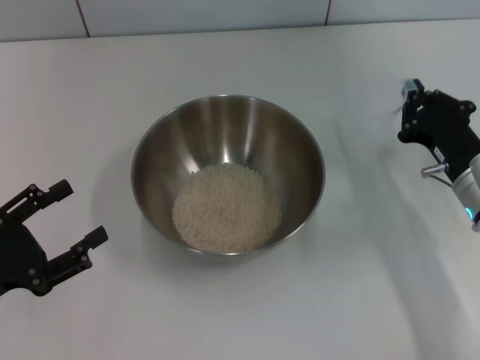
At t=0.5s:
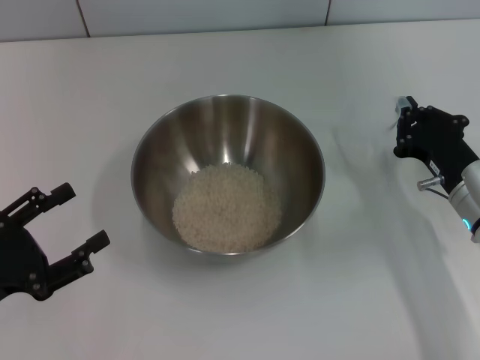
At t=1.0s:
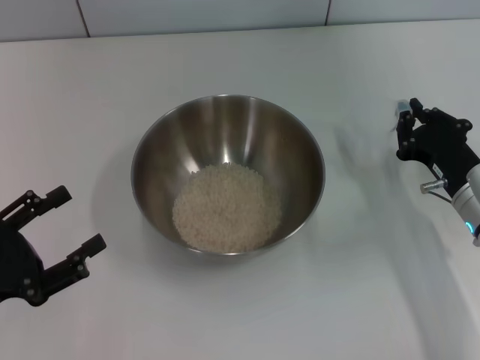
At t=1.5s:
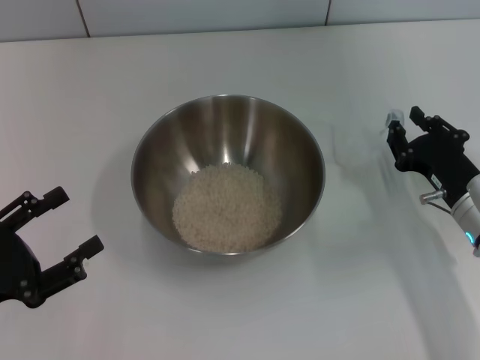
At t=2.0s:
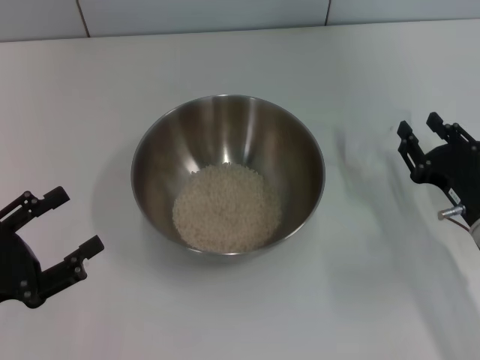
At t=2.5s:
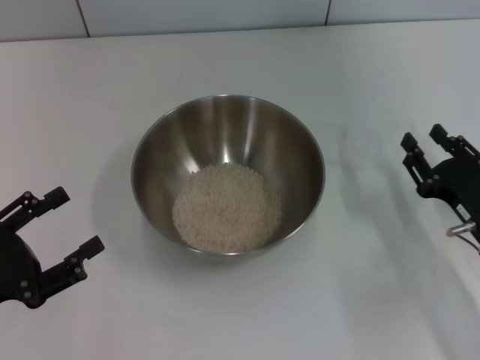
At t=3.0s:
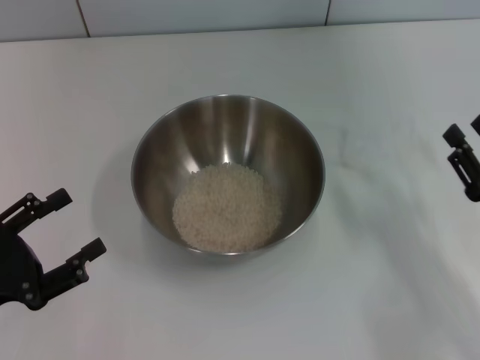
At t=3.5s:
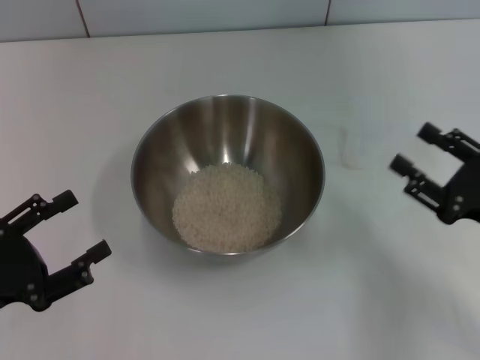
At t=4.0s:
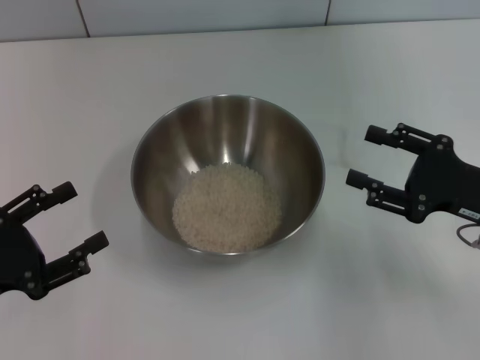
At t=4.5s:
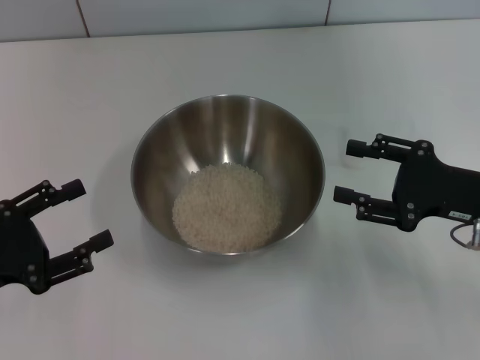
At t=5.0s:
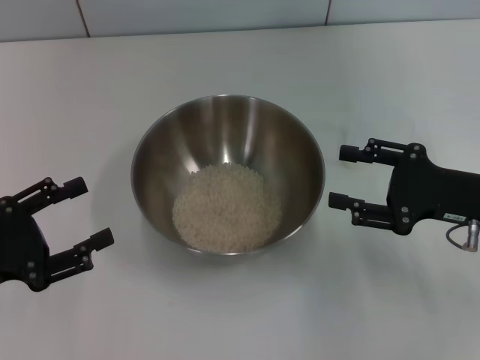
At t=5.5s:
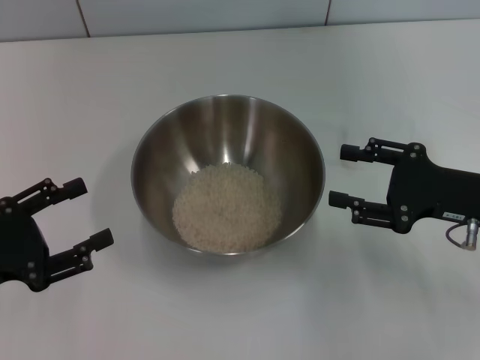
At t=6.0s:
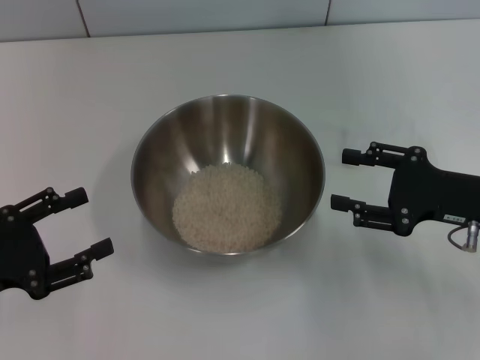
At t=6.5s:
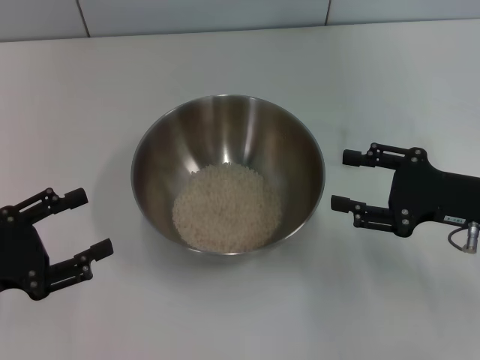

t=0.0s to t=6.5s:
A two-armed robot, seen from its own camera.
Task of the whole recording: Place the bowl in the middle of the table with one hand and pour the rice from the grain cup into it with the other hand.
Step, t=0.0s to t=2.0s: Place the cup on the table with the right gripper.
t=0.0s to t=2.0s: The right gripper opens up.
t=2.0s to t=4.5s: The right gripper is displaced upward by roughly 5 cm, and opens up.
t=4.5s to t=6.5s: Both grippers stay about where they are.

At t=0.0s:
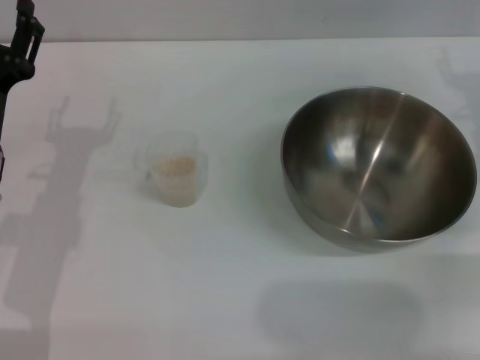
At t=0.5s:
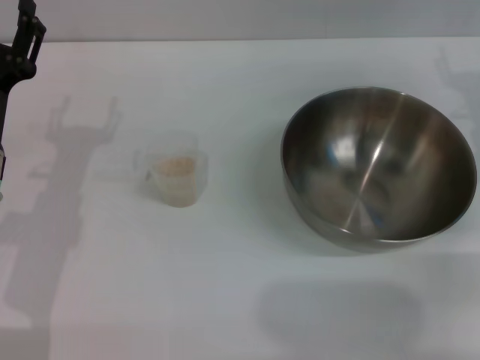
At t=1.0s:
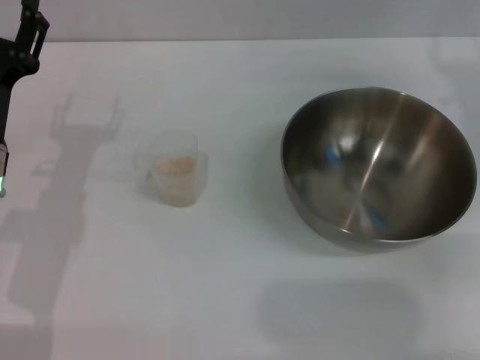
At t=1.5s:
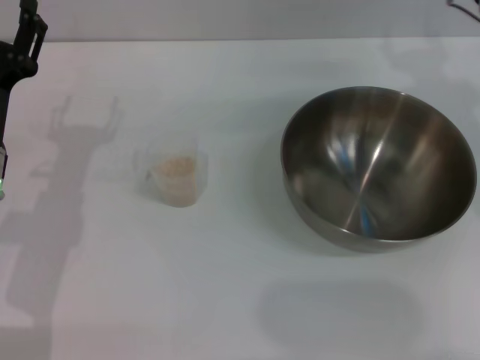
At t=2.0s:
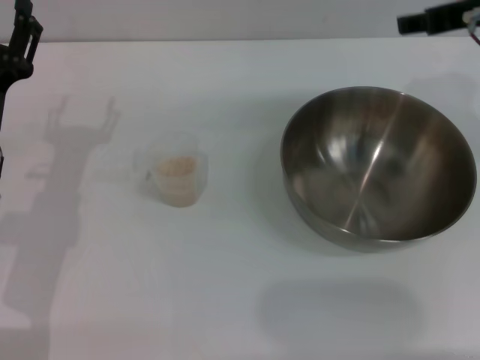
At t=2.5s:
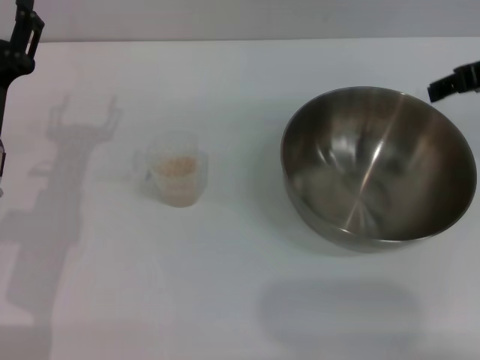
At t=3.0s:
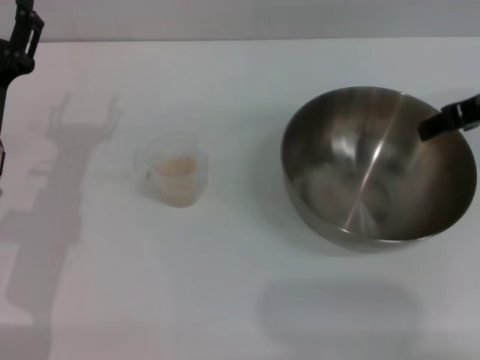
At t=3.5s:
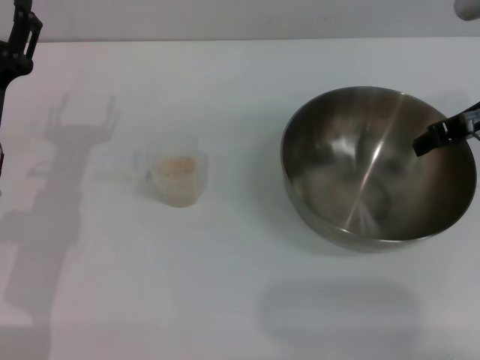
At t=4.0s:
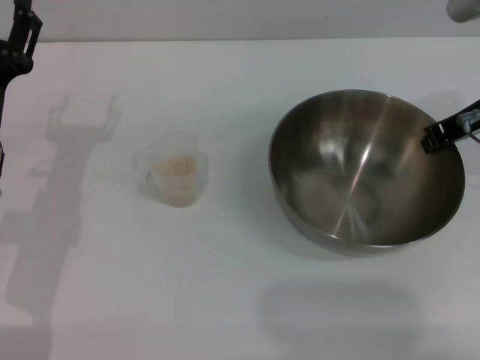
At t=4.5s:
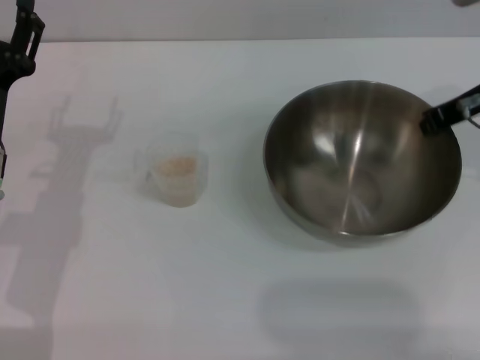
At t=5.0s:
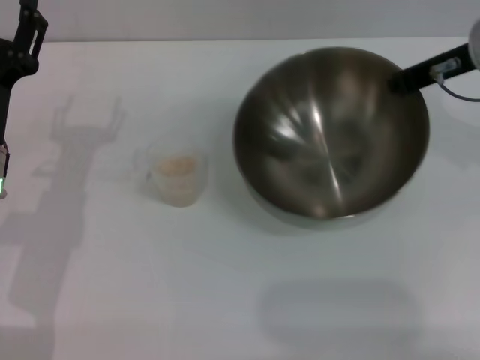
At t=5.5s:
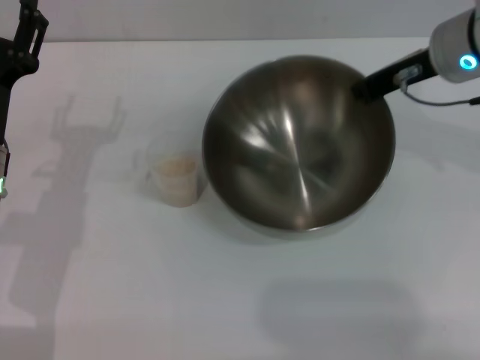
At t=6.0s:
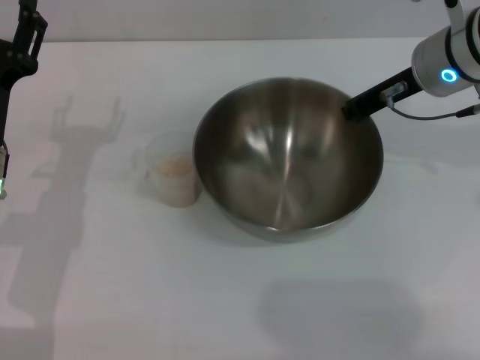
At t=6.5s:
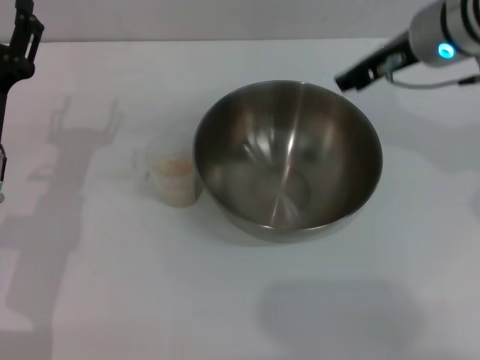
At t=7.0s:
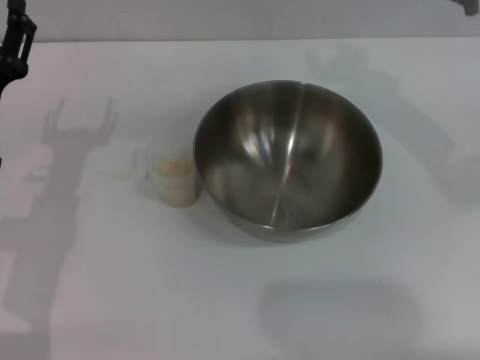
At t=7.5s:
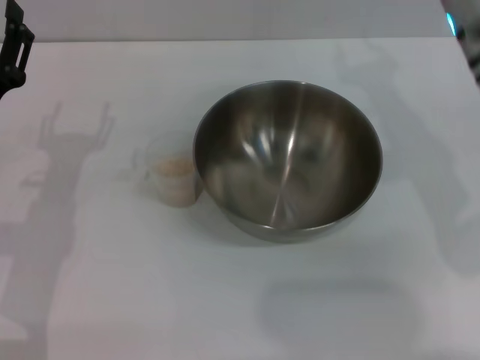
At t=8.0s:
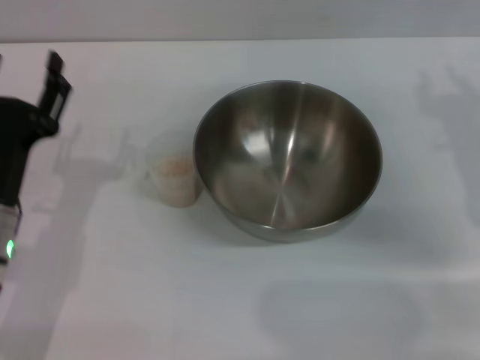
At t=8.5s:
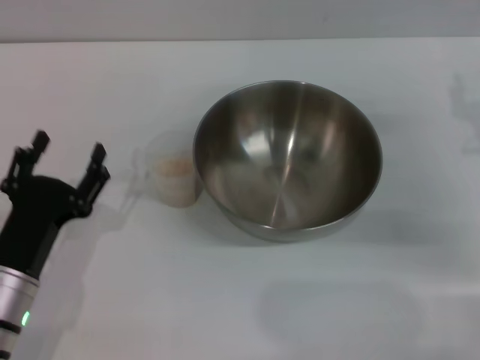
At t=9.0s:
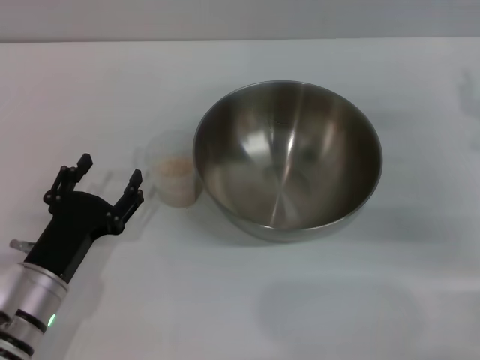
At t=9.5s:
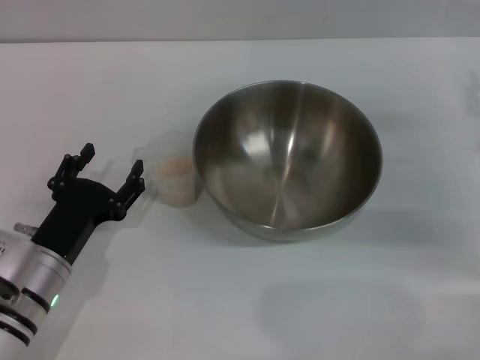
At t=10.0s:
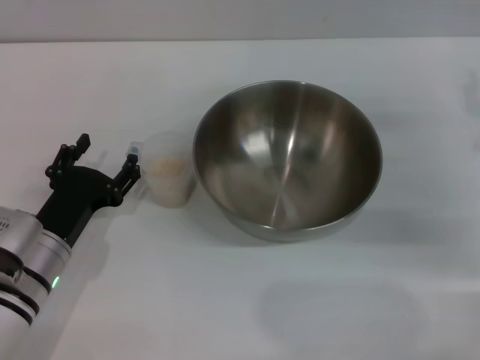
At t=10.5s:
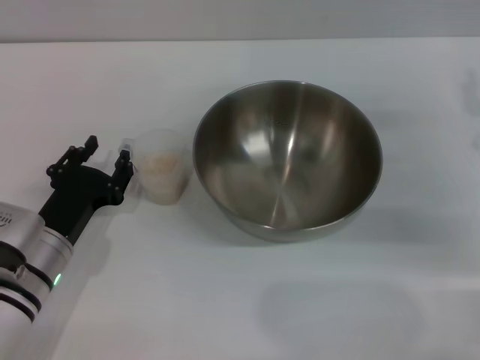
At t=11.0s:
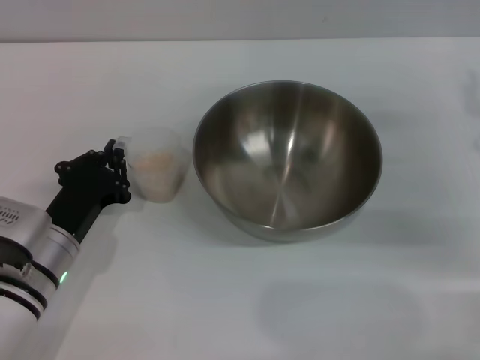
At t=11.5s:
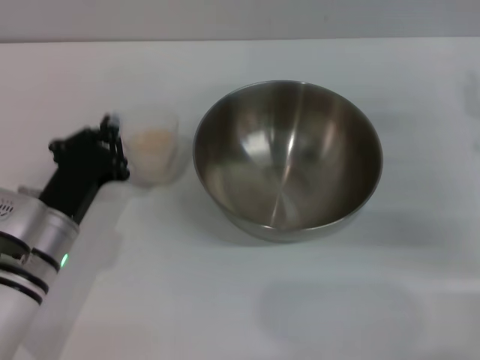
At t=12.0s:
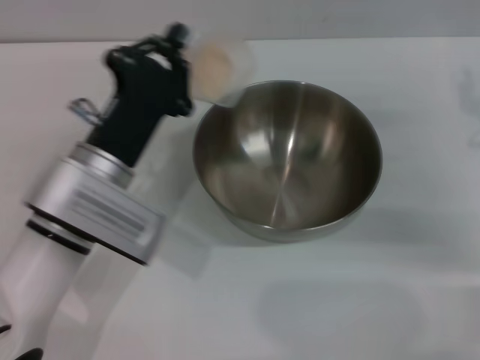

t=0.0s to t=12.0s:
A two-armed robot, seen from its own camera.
Task of the whole recording: Place the bowl in the middle of the table with one hand and pour the rice from the grain cup into it with the other hand.
Step, t=0.0s to t=4.5s: Pick up the bowl with the right gripper.
Step, t=5.0s to t=6.5s: Place the bowl in the center of view with the right gripper.
Step, t=7.0s to t=11.0s: Pick up the cup with rice in it with the left gripper.
t=0.0s to t=2.0s: The right gripper heads upward and to the left, covering about 15 cm.
t=2.0s to t=4.0s: The right gripper is displaced downward by roughly 5 cm, and closes its fingers.
t=4.0s to t=6.0s: The right gripper shifts roughly 5 cm to the left.
t=6.0s to t=8.0s: The left gripper shifts by approximately 5 cm, while the right gripper travels to the right, backward and downward by some 15 cm, and opens.
t=8.0s to t=10.0s: The left gripper is displaced downward by about 5 cm.
t=10.0s to t=12.0s: The left gripper shifts some 10 cm upward and to the right, and closes.

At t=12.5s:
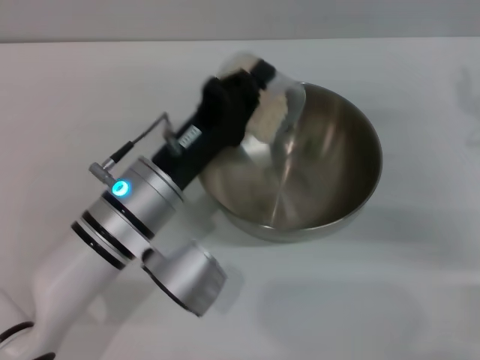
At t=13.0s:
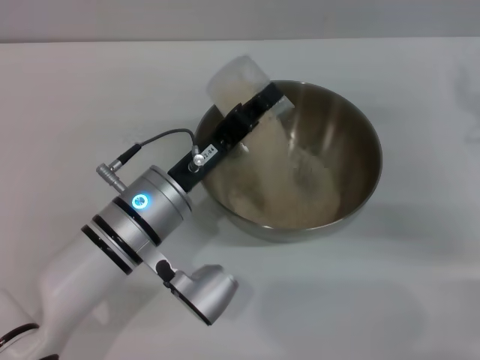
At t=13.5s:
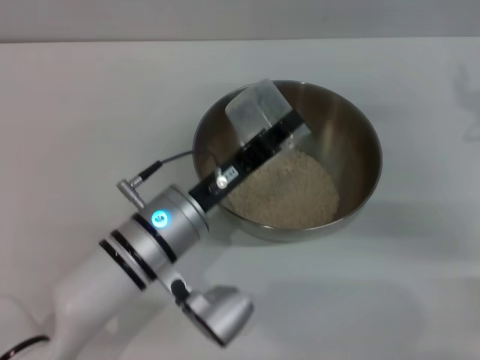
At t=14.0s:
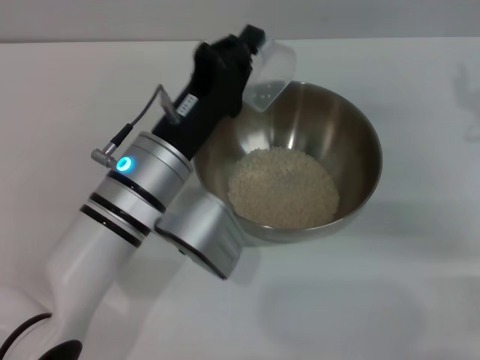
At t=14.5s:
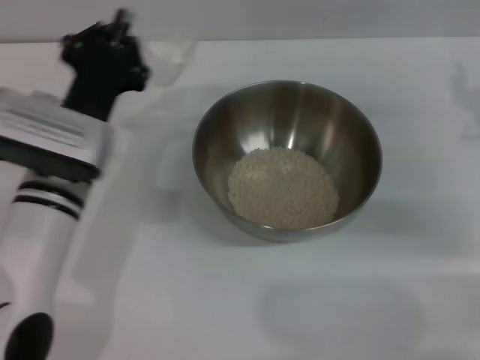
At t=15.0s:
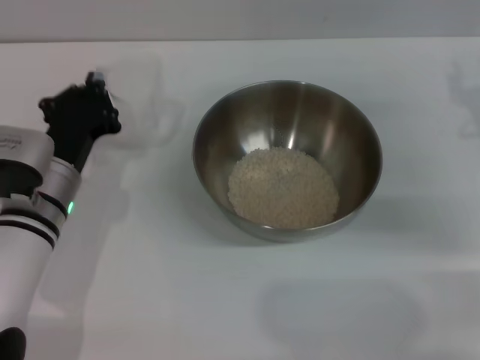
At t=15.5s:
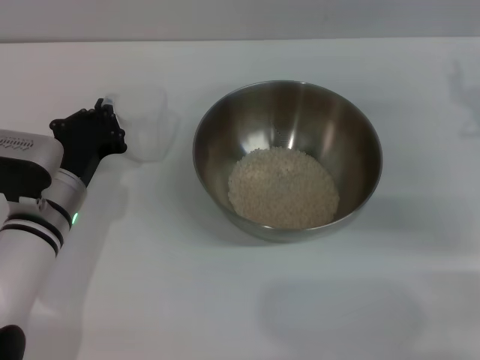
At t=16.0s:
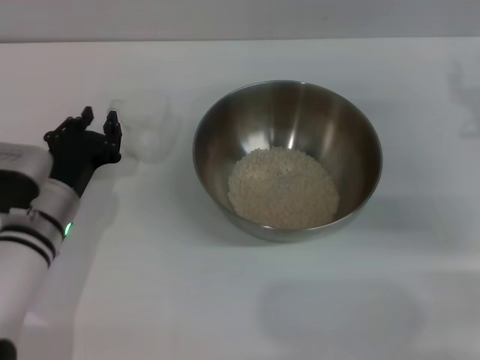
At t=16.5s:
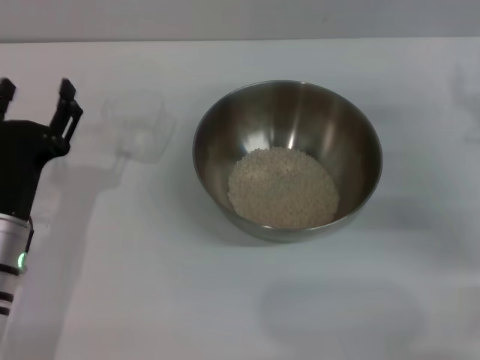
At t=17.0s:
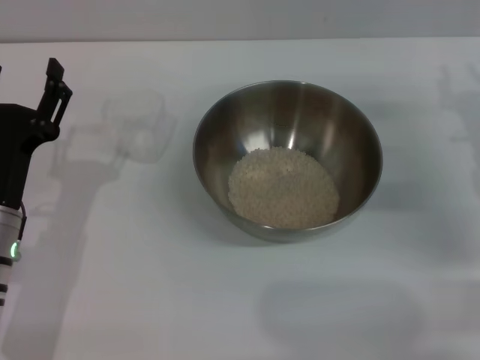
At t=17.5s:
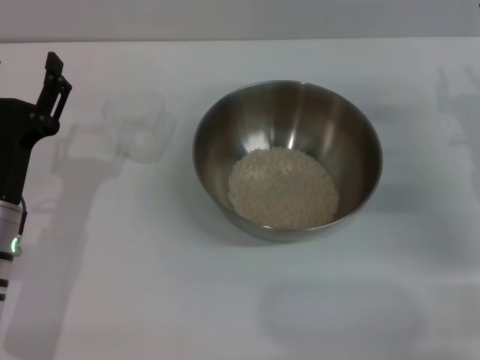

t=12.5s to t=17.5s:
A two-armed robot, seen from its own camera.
Task of the whole recording: Place the bowl in the middle of the table with one hand and pour the rice from the grain cup into it with the other hand.
Step, t=14.5s to t=16.0s: Place the cup on the table with the left gripper.
t=12.5s to t=15.0s: The left gripper moves to the left, roughly 10 cm.
t=15.0s to t=17.5s: The left gripper is displaced backward by some 5 cm, and opens.

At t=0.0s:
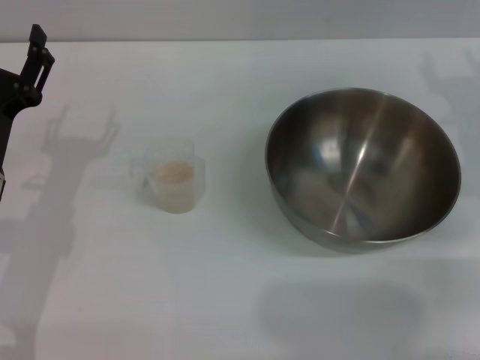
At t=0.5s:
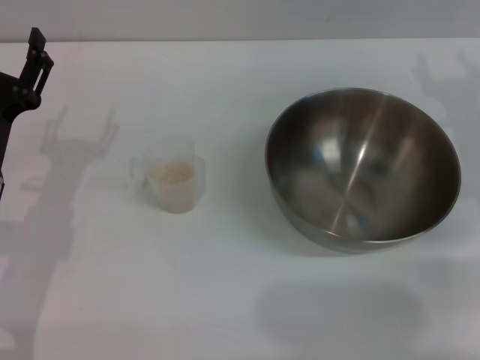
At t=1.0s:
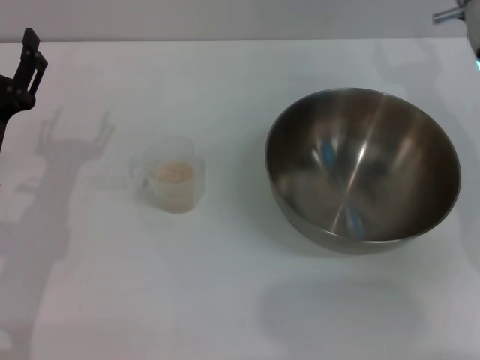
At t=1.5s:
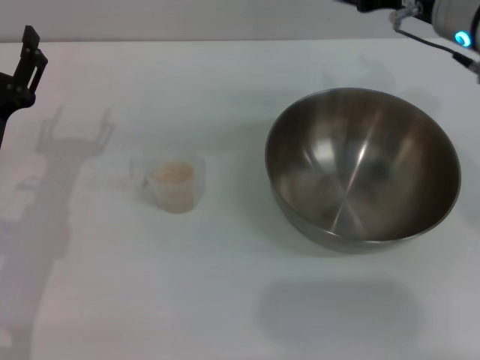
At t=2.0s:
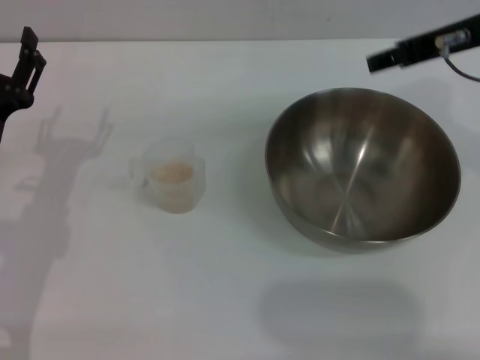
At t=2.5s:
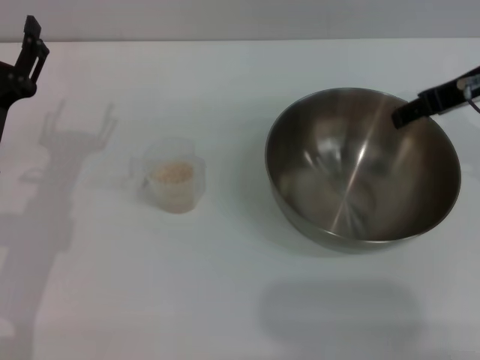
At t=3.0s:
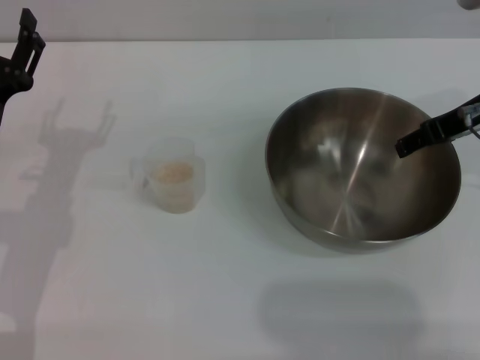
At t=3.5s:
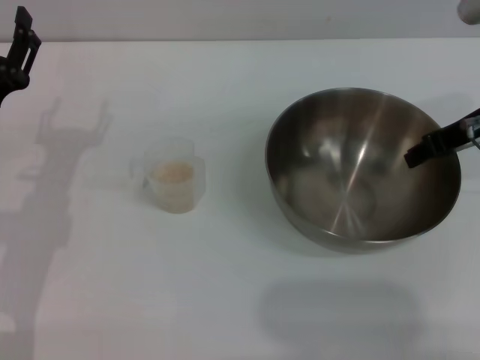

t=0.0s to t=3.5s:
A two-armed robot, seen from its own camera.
Task of the whole recording: Place the bowl in the middle of the table with one hand and pour the rice from the grain cup into it with the other hand.
t=0.0s to t=2.0s: The right gripper goes some 15 cm upward and to the left.
t=2.0s to t=3.5s: The right gripper goes approximately 5 cm downward.
